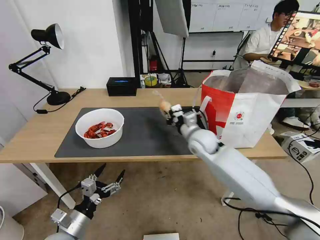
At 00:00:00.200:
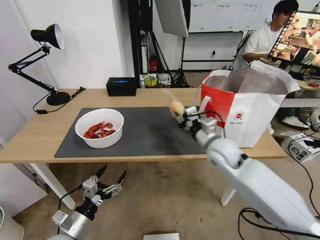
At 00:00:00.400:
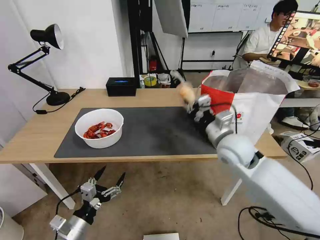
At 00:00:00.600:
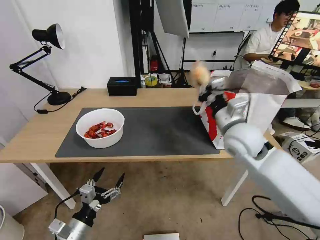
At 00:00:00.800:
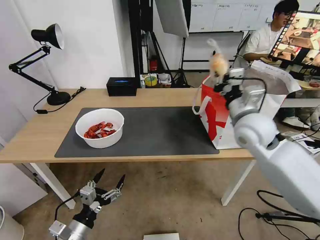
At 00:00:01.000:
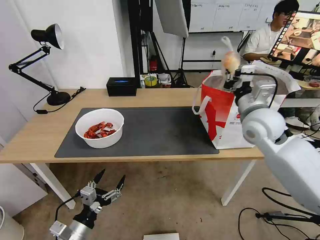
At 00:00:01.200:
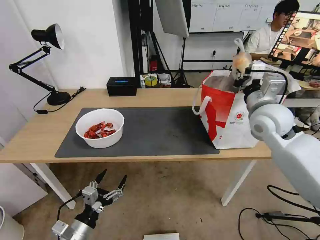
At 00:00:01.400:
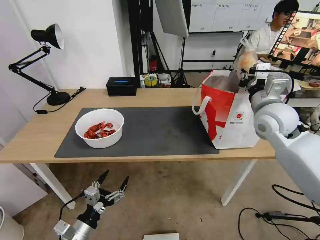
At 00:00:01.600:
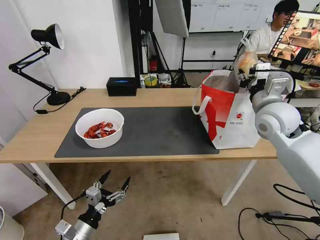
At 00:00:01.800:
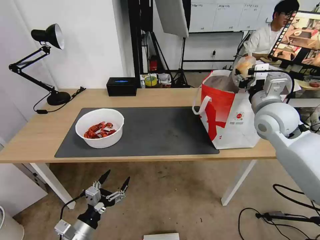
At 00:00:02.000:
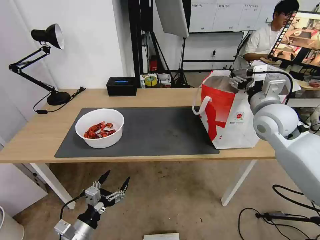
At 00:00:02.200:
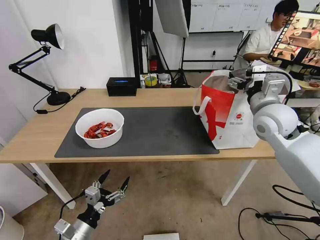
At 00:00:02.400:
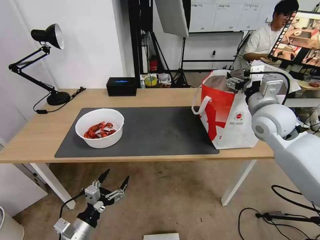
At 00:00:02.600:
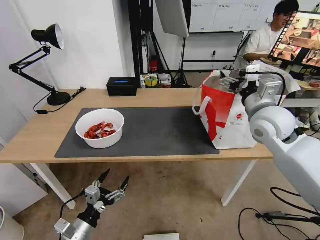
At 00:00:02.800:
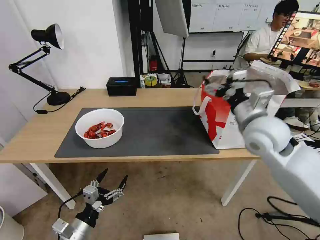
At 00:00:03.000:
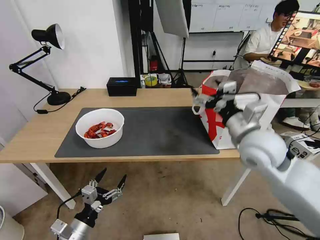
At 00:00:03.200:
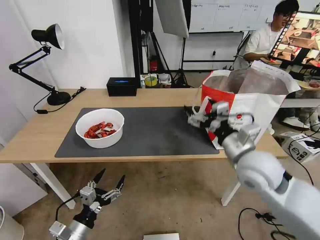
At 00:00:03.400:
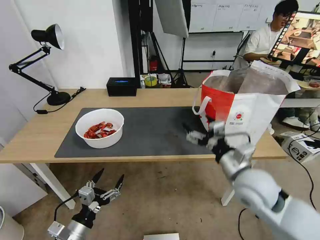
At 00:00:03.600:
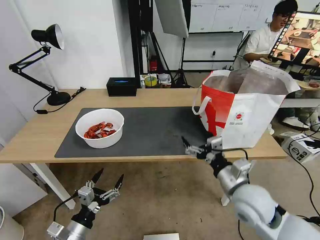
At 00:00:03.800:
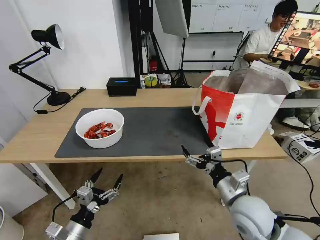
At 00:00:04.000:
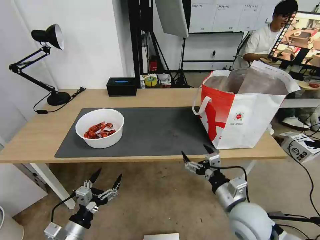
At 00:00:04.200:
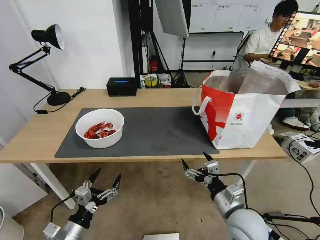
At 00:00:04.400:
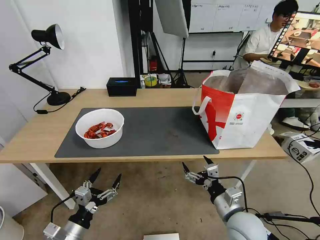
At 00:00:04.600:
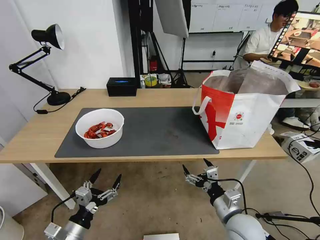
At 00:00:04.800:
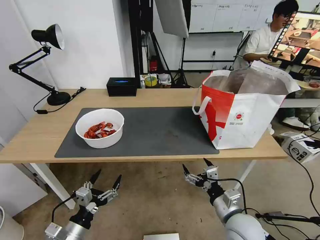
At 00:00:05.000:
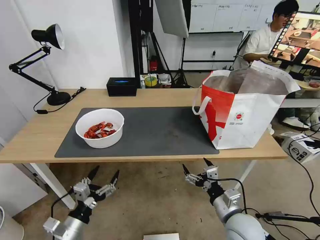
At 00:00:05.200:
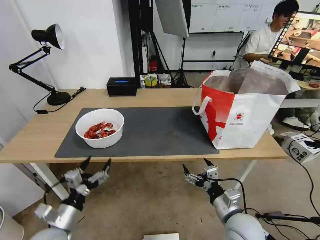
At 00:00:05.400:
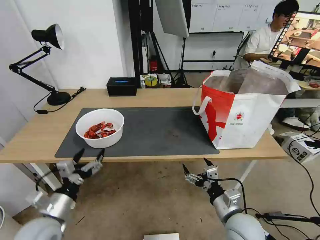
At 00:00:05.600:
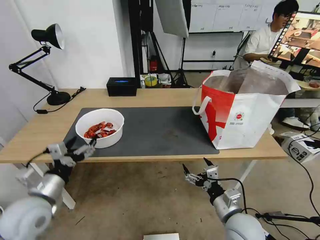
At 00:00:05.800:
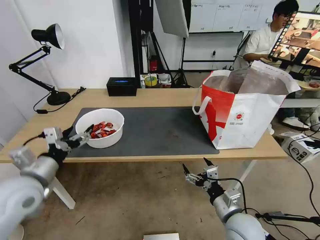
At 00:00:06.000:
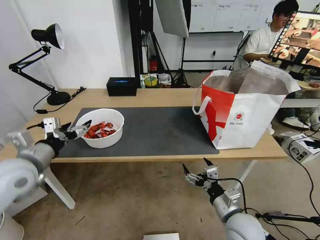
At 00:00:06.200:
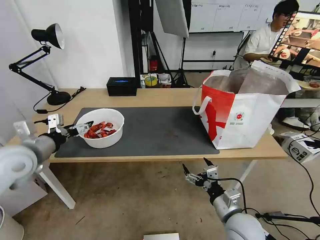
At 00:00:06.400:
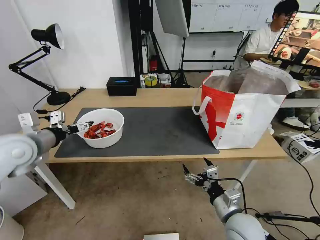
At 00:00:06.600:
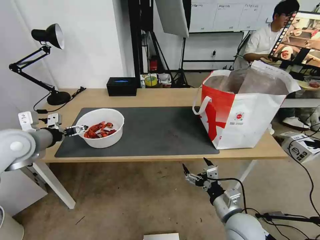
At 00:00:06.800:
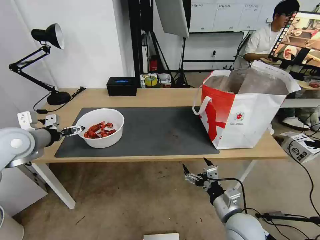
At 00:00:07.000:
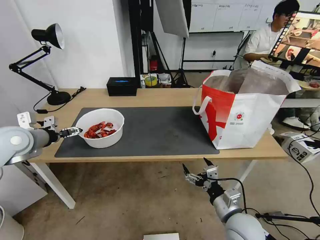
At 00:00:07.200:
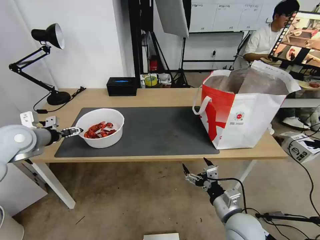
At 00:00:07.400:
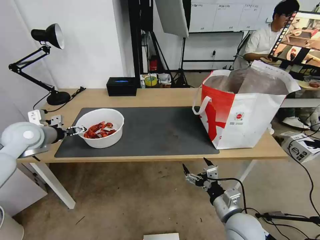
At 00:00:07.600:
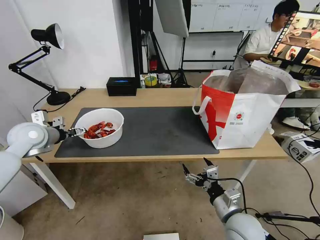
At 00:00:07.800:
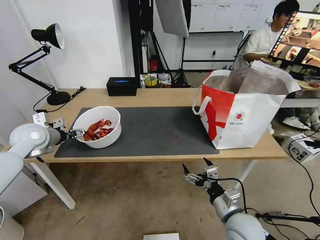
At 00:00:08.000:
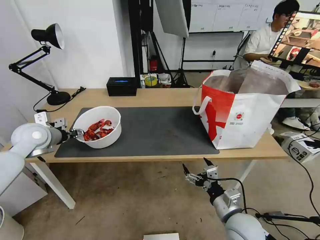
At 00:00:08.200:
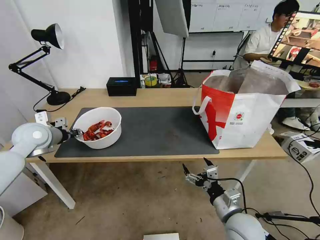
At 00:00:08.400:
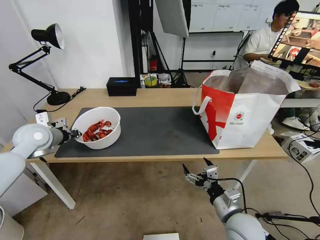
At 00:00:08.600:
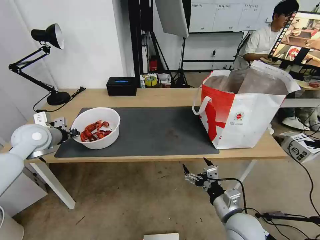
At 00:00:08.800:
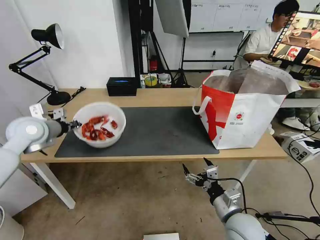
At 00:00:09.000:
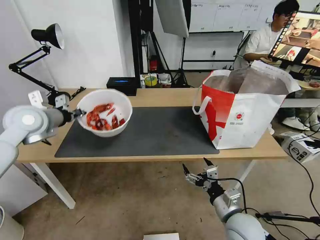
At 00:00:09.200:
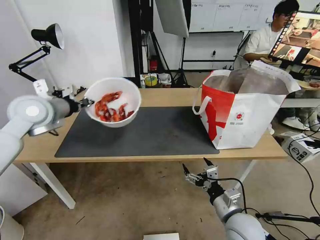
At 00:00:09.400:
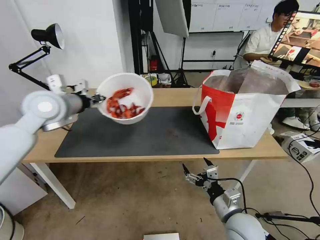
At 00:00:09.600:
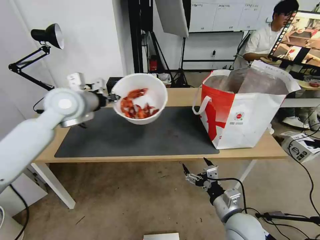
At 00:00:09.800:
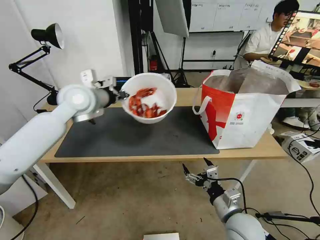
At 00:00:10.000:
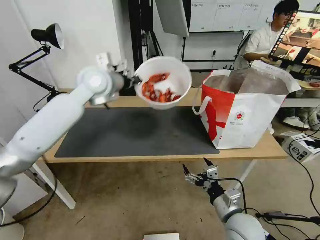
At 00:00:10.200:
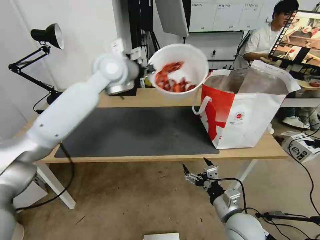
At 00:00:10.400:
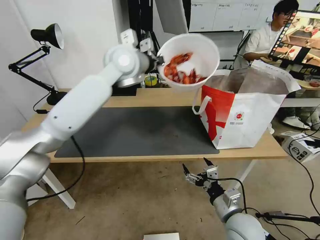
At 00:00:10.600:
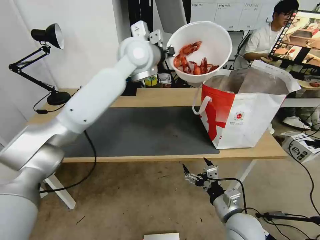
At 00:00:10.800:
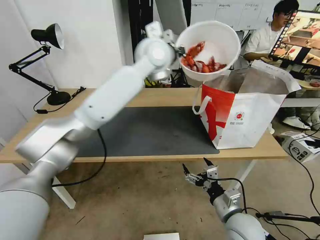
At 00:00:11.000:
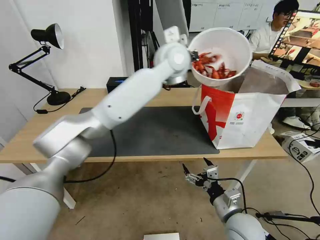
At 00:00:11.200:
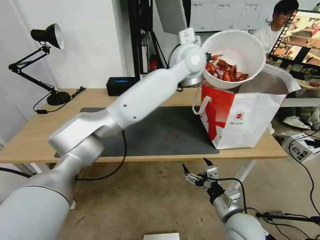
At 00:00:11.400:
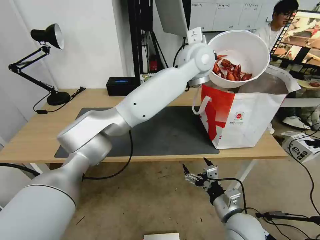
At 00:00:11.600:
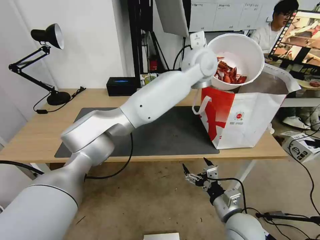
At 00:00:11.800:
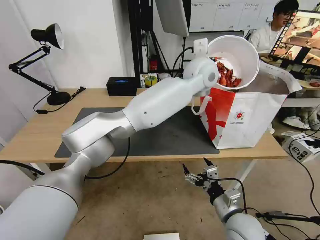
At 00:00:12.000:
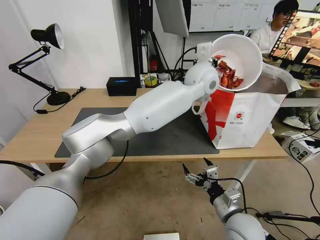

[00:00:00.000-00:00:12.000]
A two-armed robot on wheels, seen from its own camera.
Task of the whole recording: Pick up the trash from the table and place it into the takeout bag.
00:00:00.000 to 00:00:01.600: The right gripper heads to the right and upward, covering approximately 20 cm, and opens up.
00:00:01.600 to 00:00:03.000: The right gripper heads backward and to the left, covering some 10 cm, and opens up.
00:00:03.000 to 00:00:04.400: The right gripper shifts some 25 cm downward and backward.
00:00:04.400 to 00:00:06.000: The left gripper shifts some 25 cm upward and forward.
00:00:06.000 to 00:00:07.600: The left gripper shifts some 15 cm forward.
00:00:07.600 to 00:00:09.000: The left gripper is displaced upward by some 5 cm, and closes its fingers.
00:00:09.000 to 00:00:10.400: The left gripper goes approximately 30 cm to the right and upward.
00:00:10.400 to 00:00:12.000: The left gripper goes approximately 20 cm to the right.

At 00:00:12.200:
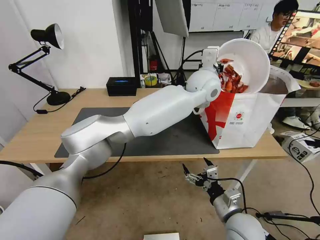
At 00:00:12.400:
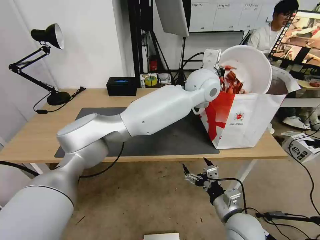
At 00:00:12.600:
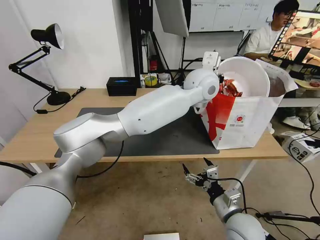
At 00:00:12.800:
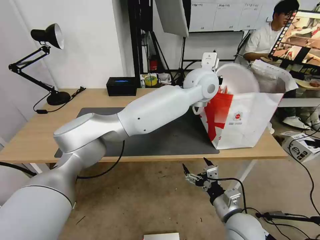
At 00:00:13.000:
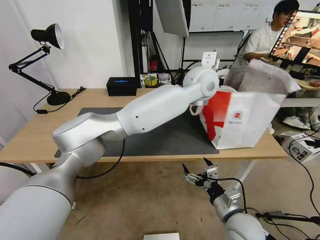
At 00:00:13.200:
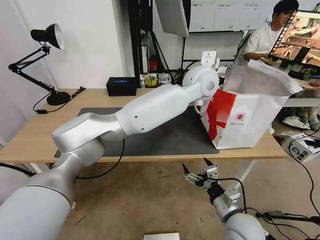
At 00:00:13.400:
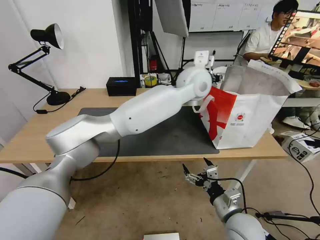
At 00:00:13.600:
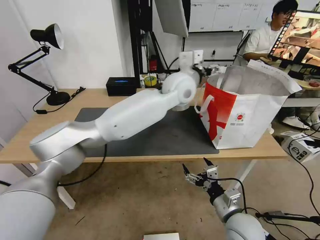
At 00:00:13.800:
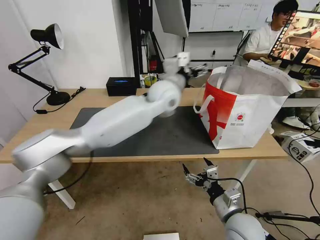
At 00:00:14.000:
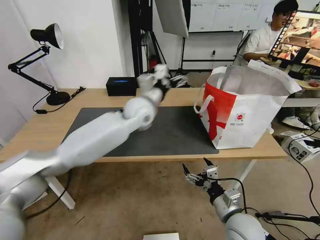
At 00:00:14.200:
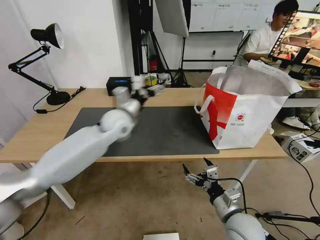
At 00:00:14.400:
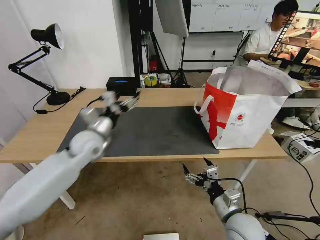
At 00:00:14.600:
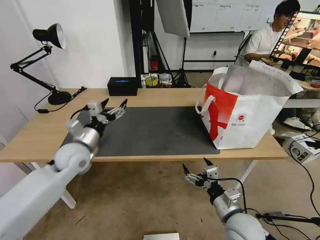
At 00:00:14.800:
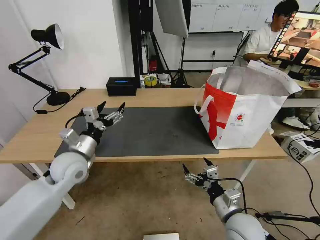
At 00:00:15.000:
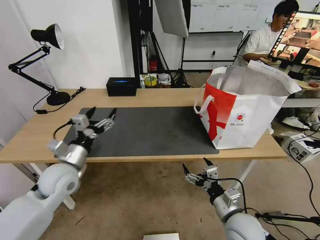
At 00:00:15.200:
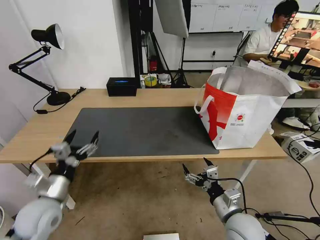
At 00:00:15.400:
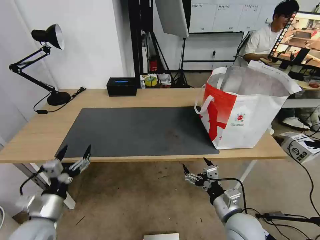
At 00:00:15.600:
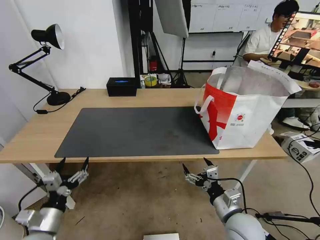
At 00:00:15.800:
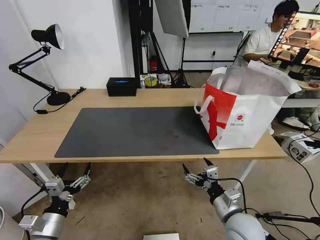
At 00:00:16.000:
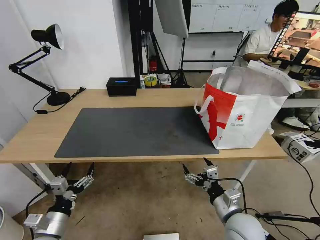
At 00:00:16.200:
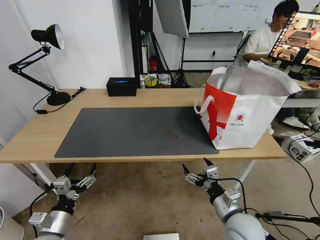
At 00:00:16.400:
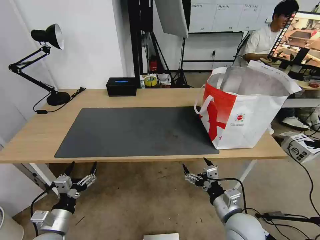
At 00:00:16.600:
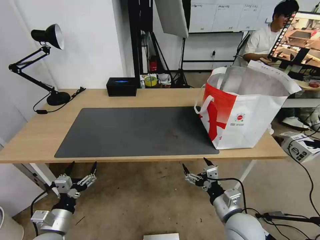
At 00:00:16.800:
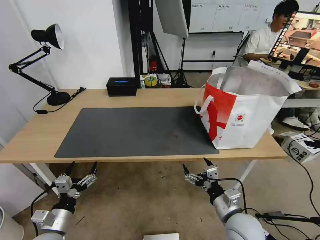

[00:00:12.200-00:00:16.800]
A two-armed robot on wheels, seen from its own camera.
Task of the whole recording: Pick up the trash from the table and place it into the takeout bag.
00:00:12.200 to 00:00:13.800: The left gripper heads to the left, covering about 15 cm, and opens its fingers.
00:00:13.800 to 00:00:15.200: The left gripper shifts some 40 cm to the left, backward and downward.
00:00:15.200 to 00:00:16.800: The left gripper moves downward and backward, roughly 15 cm.
